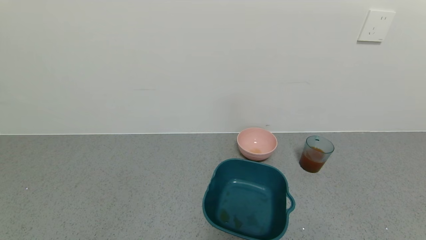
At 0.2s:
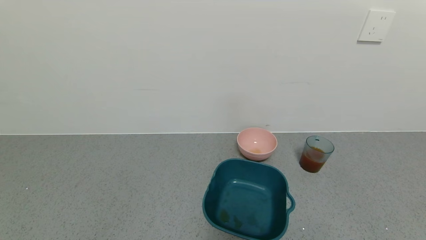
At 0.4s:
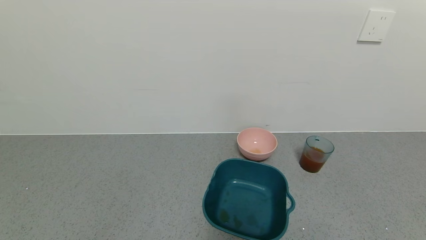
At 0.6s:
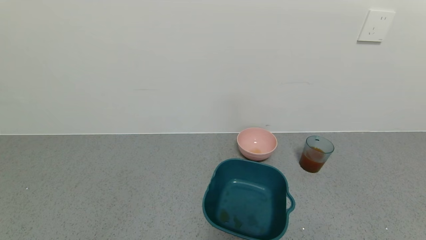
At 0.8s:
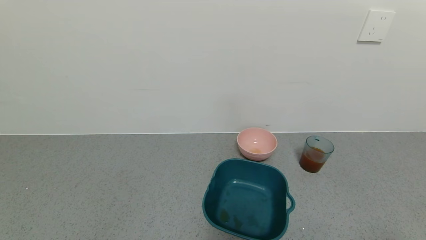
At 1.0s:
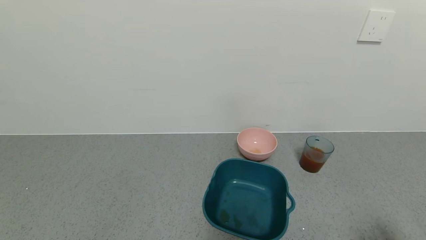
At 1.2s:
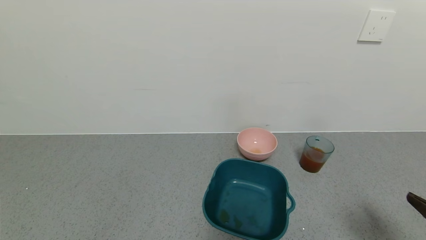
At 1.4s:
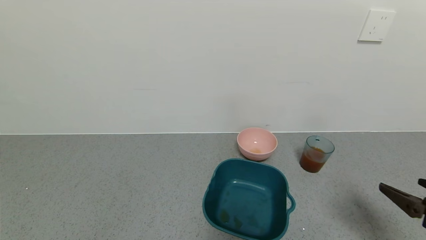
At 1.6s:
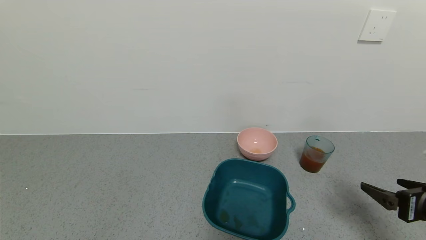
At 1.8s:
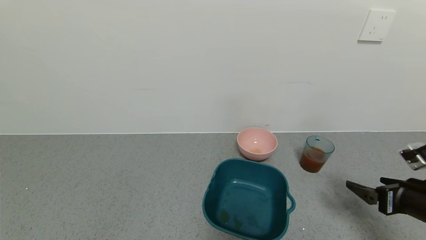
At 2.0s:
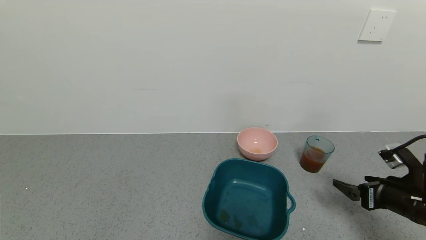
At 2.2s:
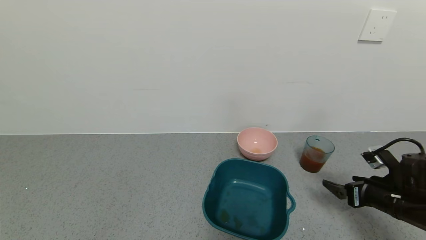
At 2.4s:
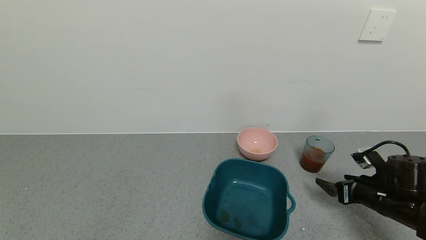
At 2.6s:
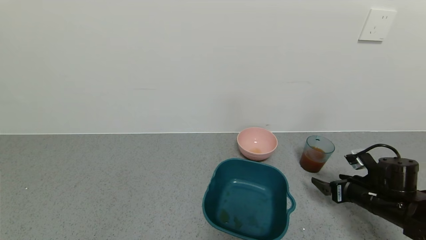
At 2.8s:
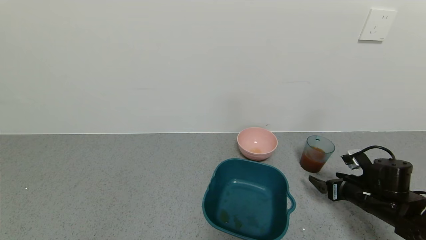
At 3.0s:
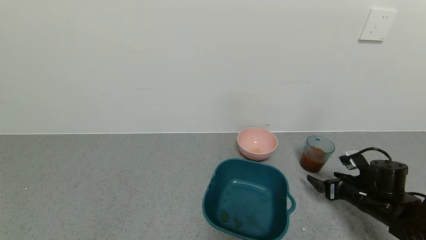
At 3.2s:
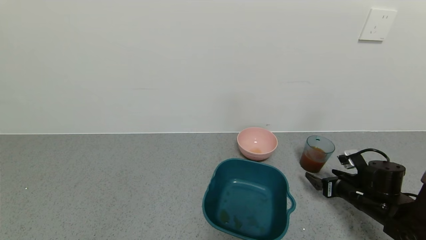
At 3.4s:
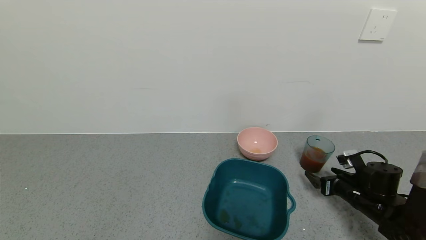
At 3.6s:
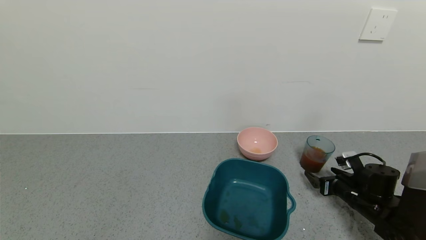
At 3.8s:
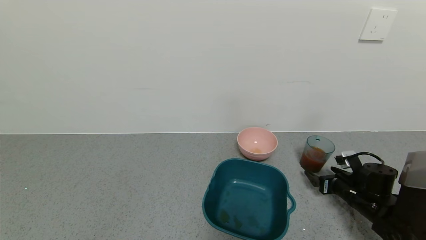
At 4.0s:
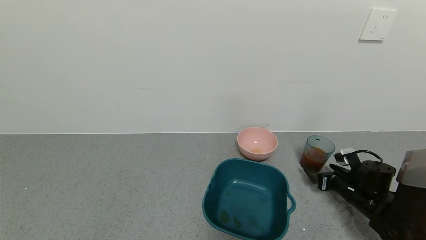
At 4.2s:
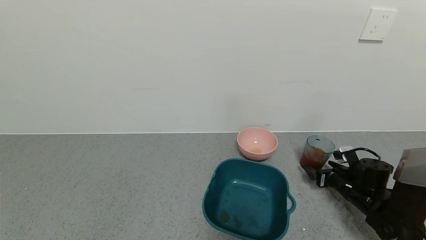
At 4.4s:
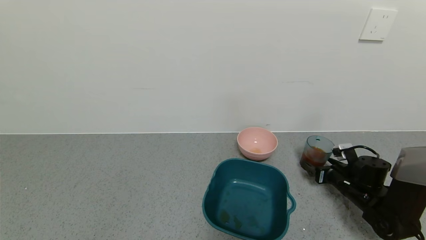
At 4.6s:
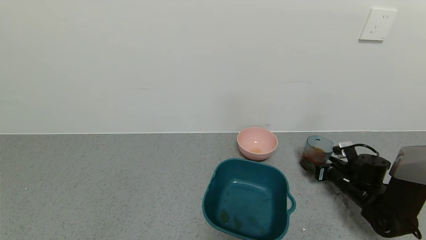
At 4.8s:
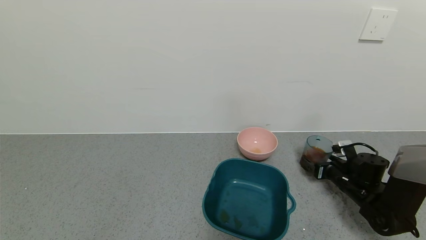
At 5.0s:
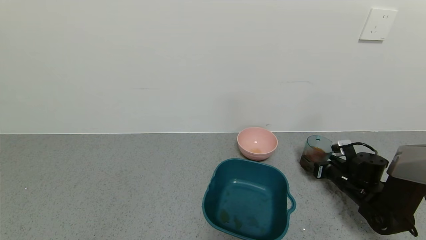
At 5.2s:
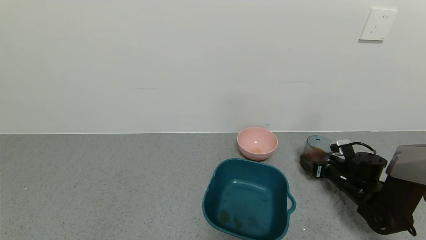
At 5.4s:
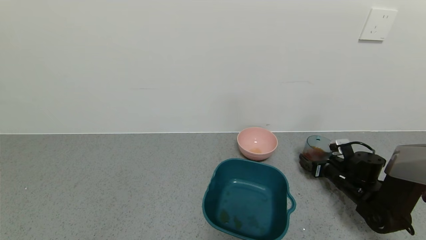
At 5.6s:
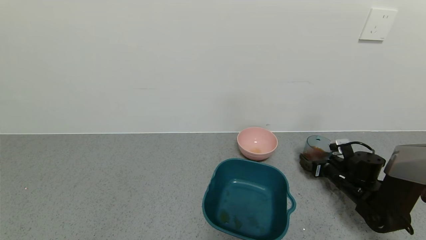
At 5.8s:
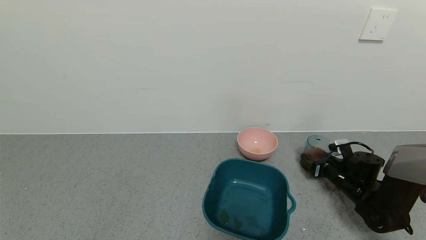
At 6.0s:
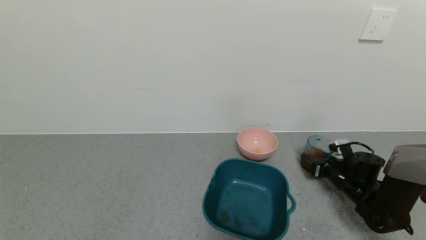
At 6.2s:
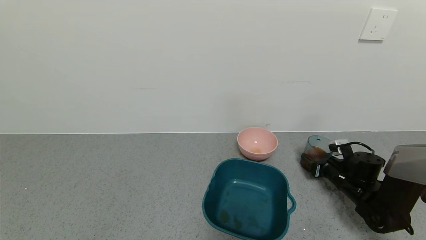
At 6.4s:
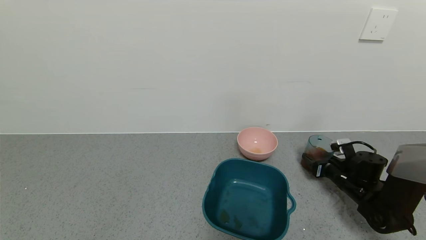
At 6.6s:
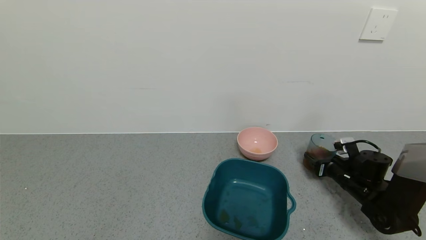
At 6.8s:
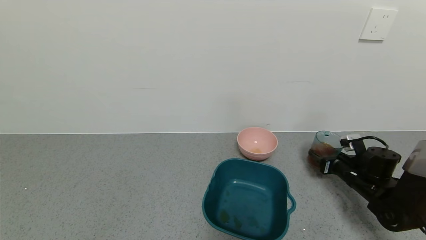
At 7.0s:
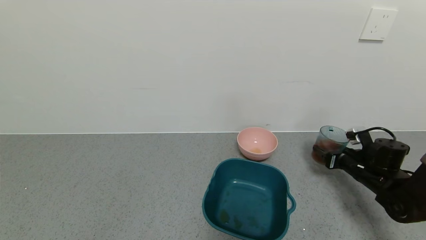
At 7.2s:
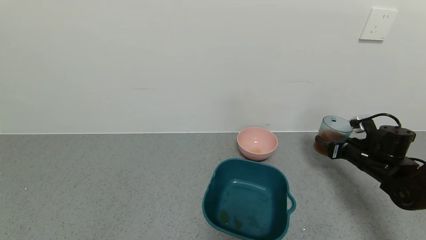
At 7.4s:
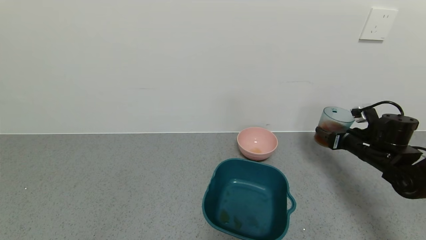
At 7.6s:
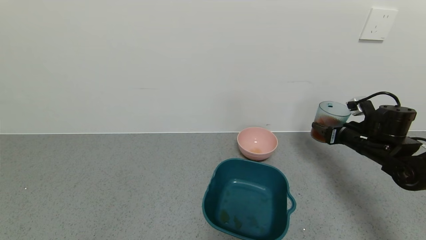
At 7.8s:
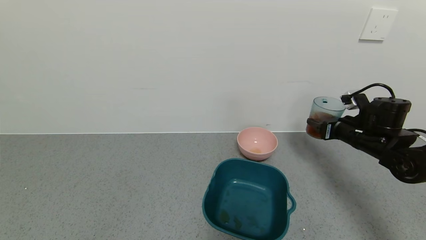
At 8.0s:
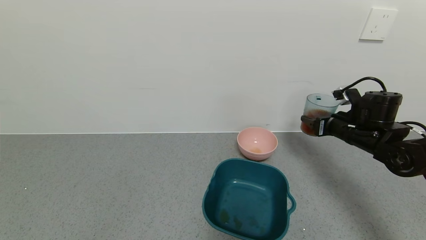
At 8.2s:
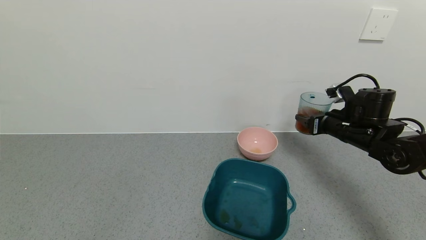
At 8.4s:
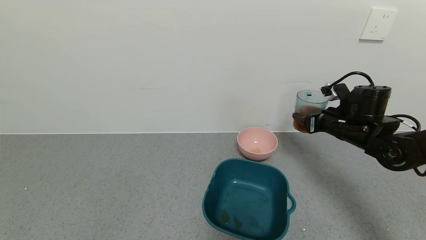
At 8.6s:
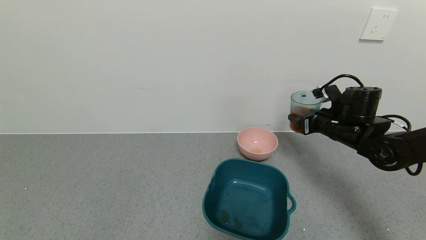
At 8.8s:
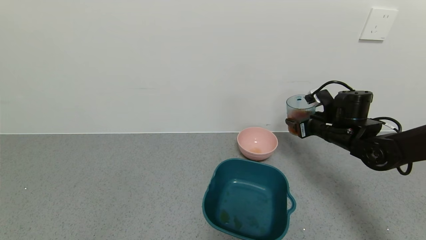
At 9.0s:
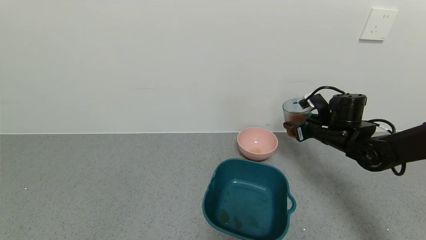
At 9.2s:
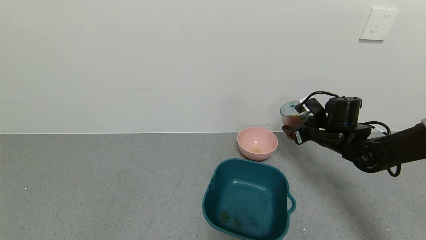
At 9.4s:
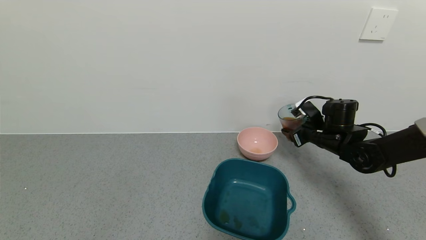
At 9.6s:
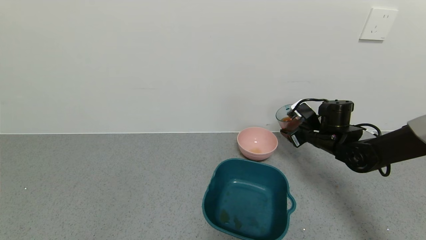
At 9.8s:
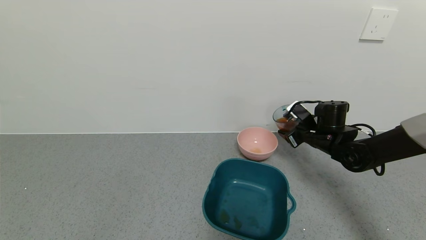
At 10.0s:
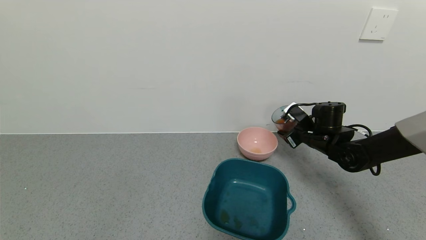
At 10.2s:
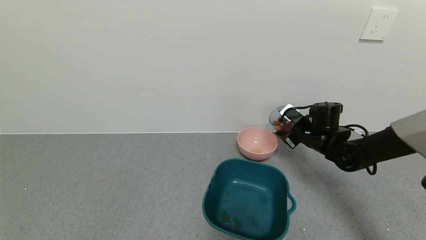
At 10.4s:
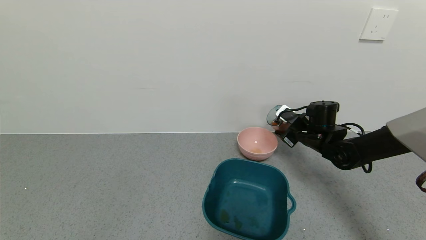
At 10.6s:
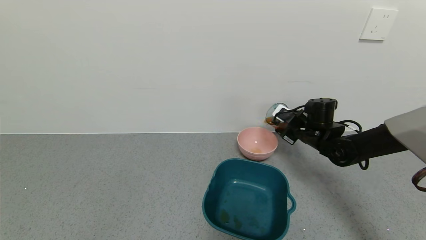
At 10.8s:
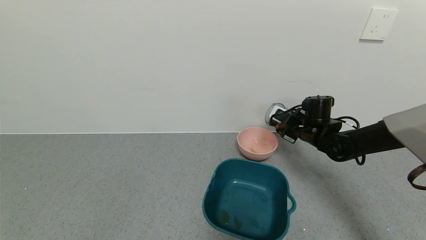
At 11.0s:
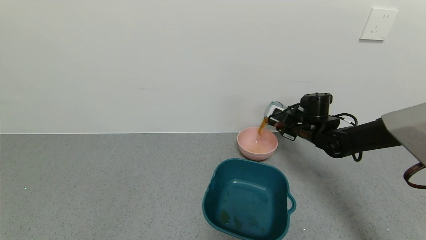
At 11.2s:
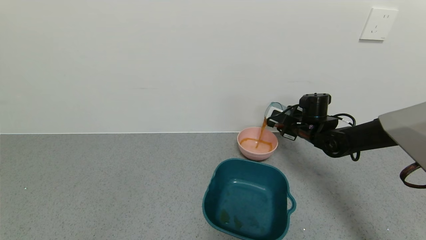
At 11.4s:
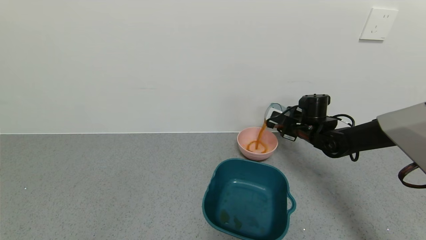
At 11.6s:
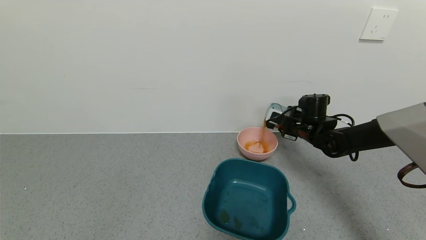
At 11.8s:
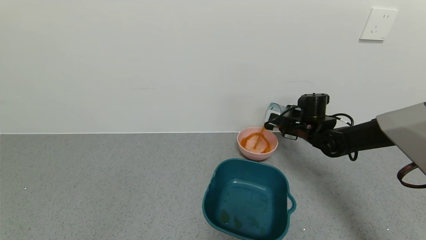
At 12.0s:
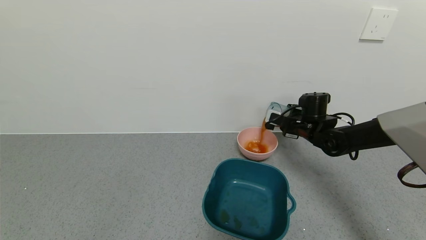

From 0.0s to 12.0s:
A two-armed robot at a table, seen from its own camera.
Task of the whole recording: use a gripper to pick up the cup and pour the liquid into a bowl or tray.
Step, from 0.0s to 6.6s: Pick up blue cup filled with orange juice with right gripper.
From 0.0s to 1.6s: The right gripper travels forward and upward by roughly 20 cm.
From 1.6s to 3.0s: The right gripper travels forward and downward by roughly 15 cm.
From 3.0s to 4.4s: The right gripper is displaced forward by some 5 cm.
From 4.4s to 6.0s: The right gripper closes.
From 6.0s to 7.6s: The right gripper is displaced upward by some 10 cm.
From 7.6s to 9.0s: The right gripper heads to the left, covering about 10 cm.
From 9.0s to 10.4s: The right gripper changes place by approximately 5 cm.

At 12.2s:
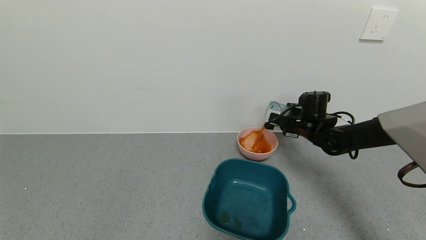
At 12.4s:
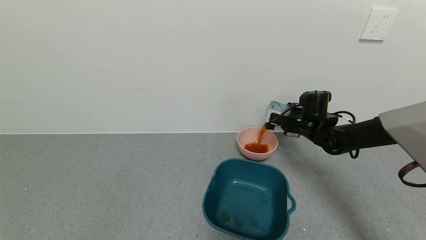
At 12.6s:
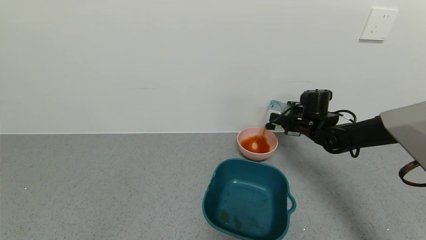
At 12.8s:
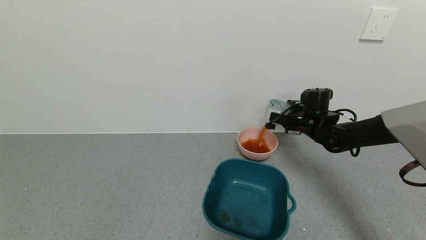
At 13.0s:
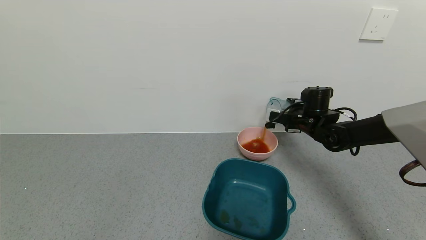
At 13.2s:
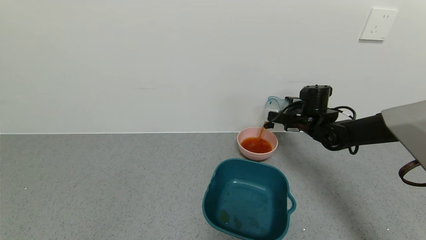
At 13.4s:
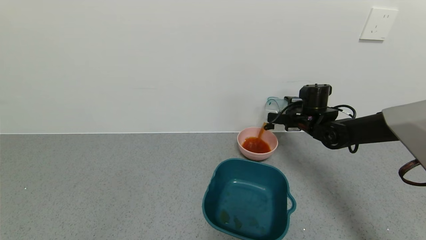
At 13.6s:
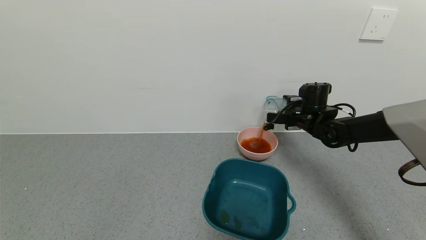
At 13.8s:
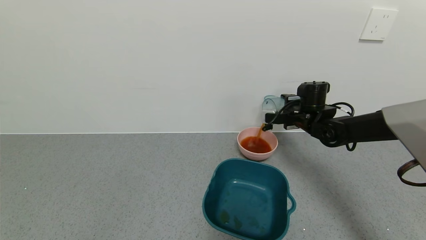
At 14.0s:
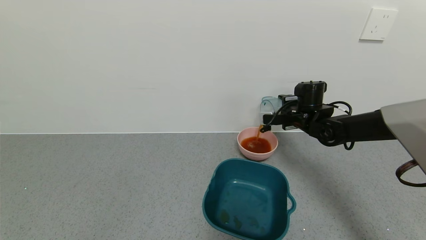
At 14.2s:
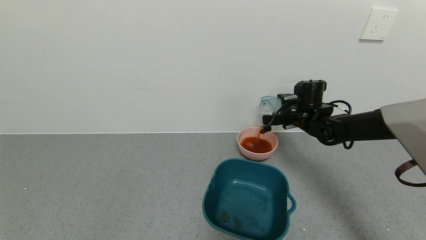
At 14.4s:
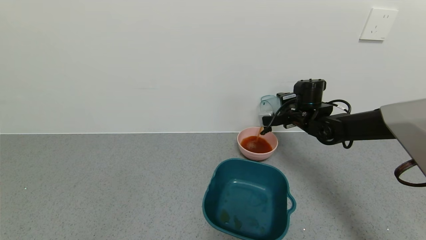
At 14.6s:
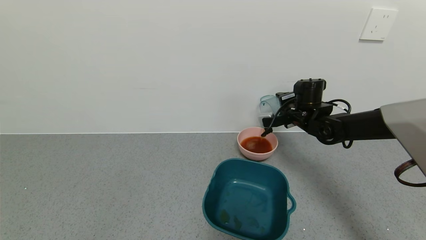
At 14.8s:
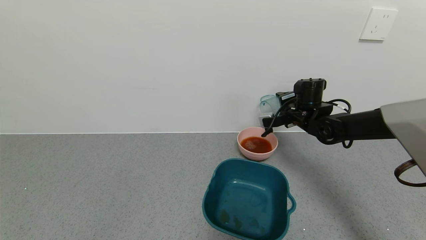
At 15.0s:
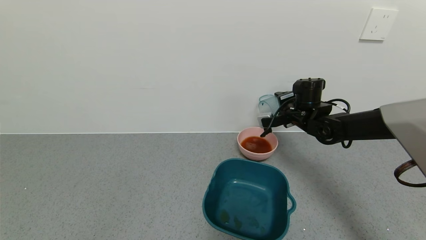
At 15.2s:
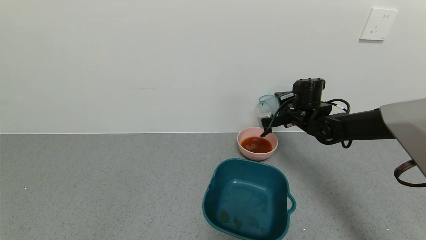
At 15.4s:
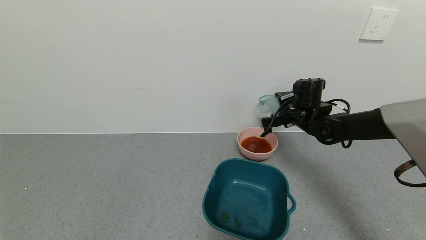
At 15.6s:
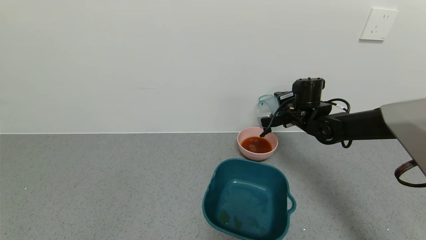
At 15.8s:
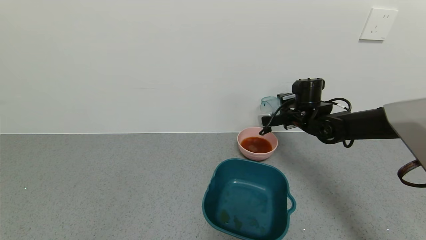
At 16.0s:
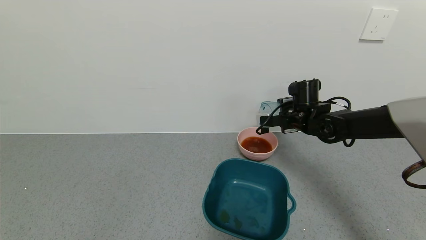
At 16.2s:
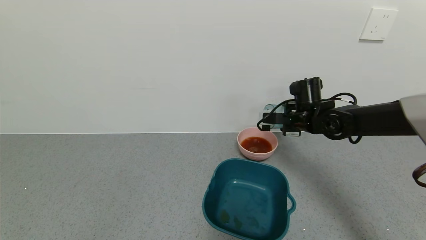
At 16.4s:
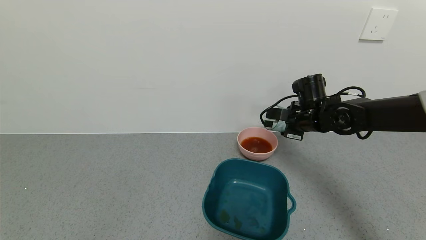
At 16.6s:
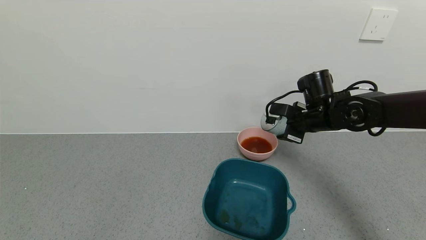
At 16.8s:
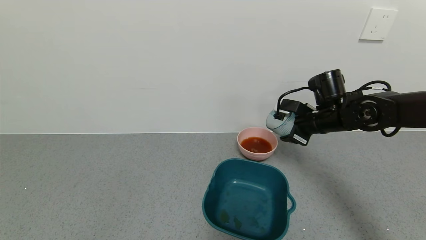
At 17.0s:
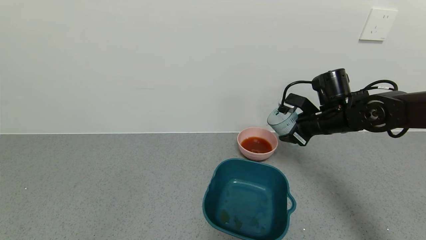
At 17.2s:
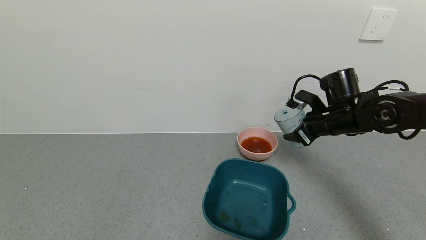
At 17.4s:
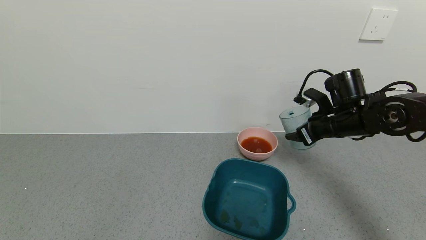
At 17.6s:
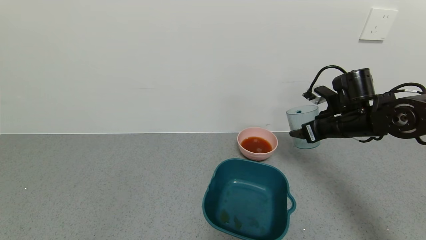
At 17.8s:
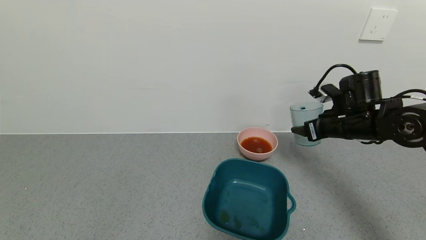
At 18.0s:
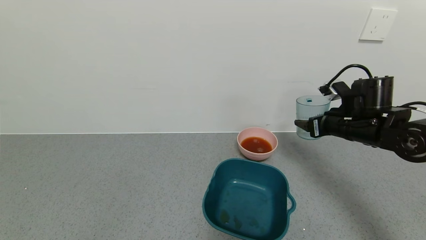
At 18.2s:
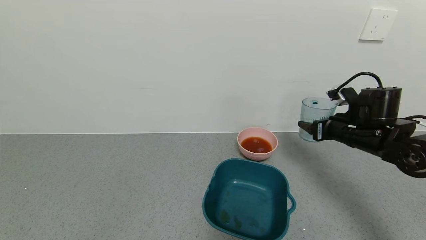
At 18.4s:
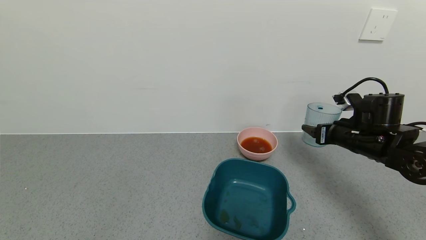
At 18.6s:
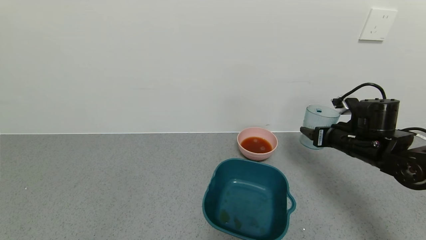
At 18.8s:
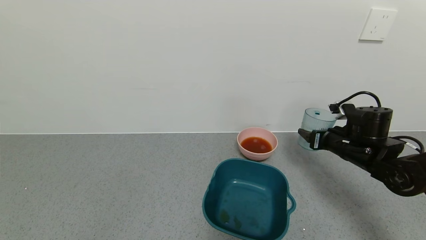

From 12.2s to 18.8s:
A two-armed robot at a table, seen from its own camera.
Task of the whole recording: use a gripper to pick up the cup and pour the liquid into a bowl or tray.
From 12.2s to 13.8s: The grippers move only a little.
From 13.8s to 15.4s: The grippers move only a little.
From 15.4s to 17.2s: The right gripper is displaced backward by approximately 10 cm.
From 17.2s to 18.8s: The right gripper is displaced downward by about 5 cm.
